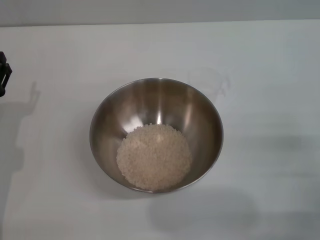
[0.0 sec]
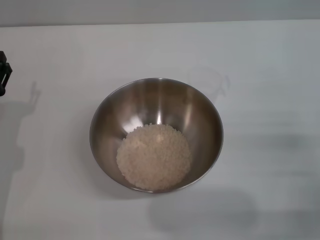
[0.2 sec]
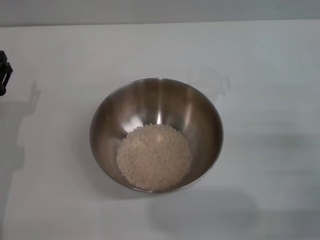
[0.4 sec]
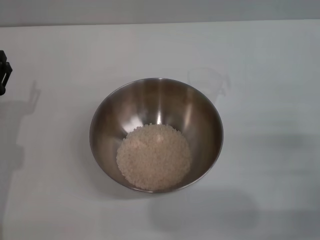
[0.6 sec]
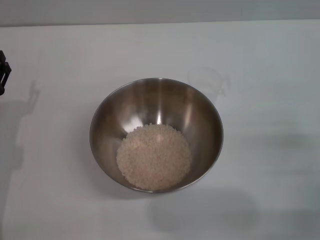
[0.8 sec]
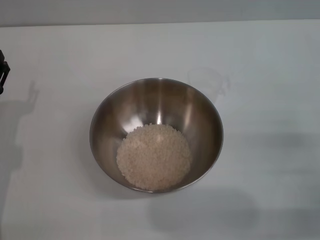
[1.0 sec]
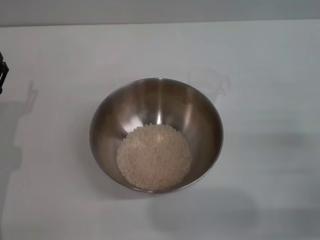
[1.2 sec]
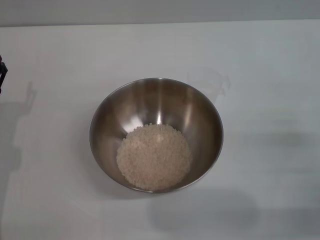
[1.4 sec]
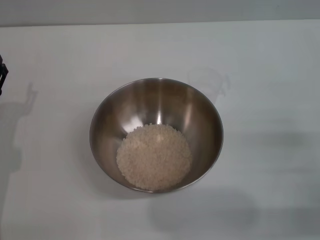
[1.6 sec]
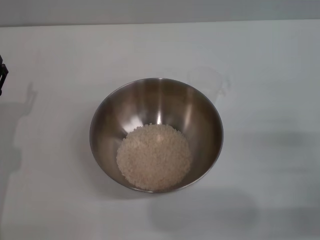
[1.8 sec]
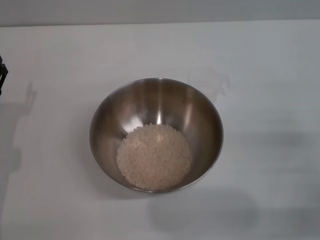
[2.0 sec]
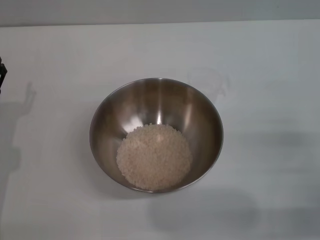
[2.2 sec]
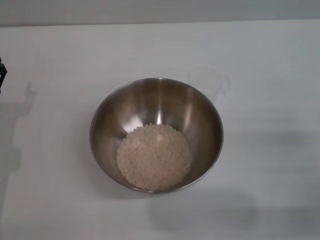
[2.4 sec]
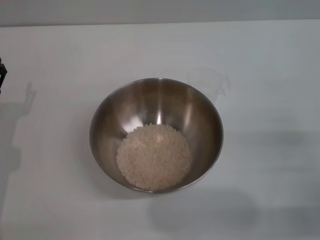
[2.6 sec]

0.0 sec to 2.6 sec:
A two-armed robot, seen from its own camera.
Task of the whole recording: Place the bowl in the middle of the table with one hand and pour the rice from the grain cup into it with the other hand.
0.0 sec to 2.6 sec: Both grippers stay about where they are.

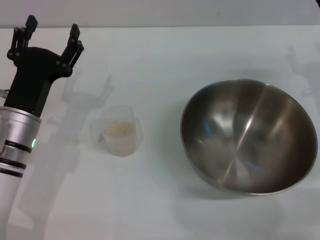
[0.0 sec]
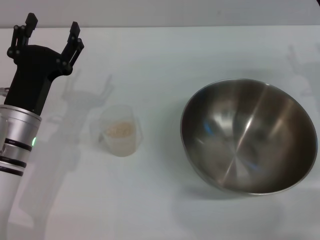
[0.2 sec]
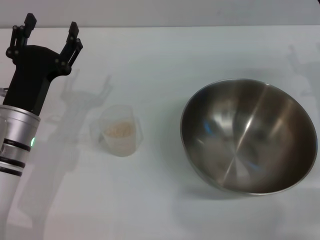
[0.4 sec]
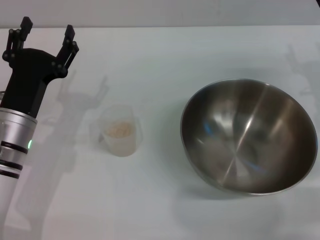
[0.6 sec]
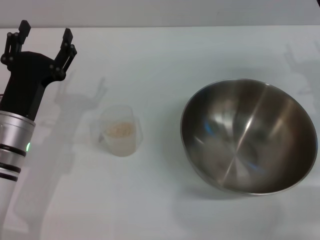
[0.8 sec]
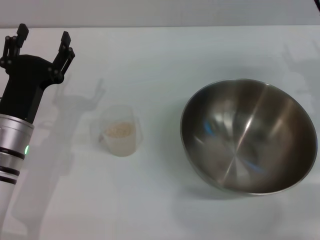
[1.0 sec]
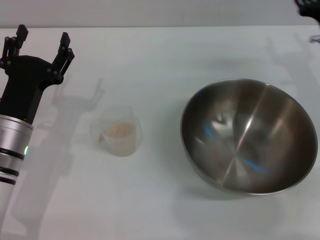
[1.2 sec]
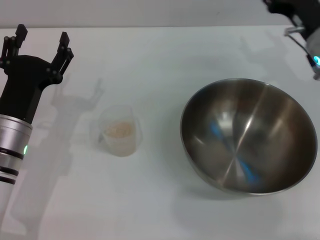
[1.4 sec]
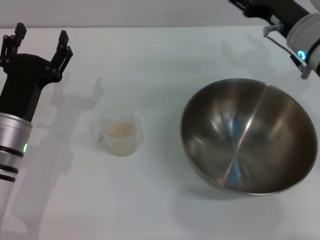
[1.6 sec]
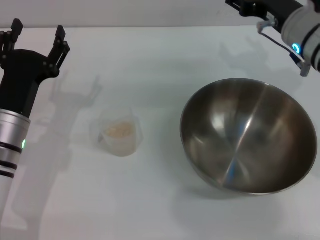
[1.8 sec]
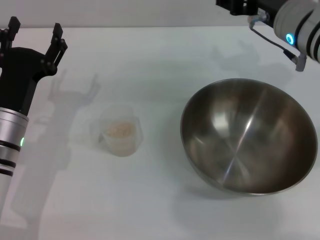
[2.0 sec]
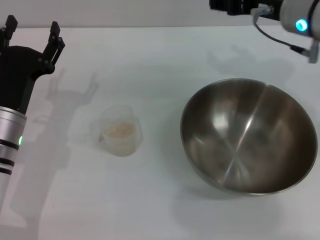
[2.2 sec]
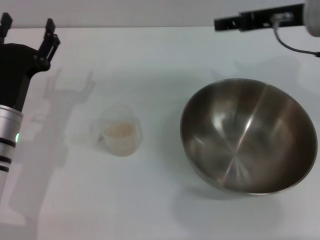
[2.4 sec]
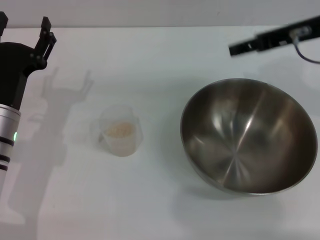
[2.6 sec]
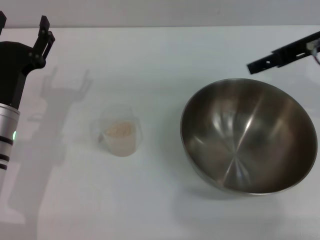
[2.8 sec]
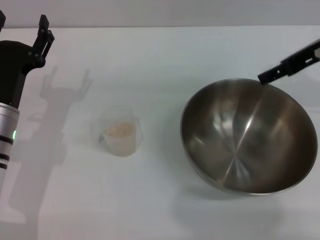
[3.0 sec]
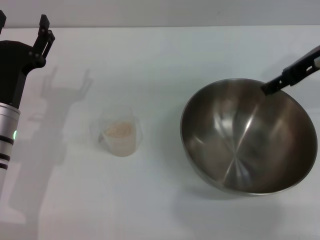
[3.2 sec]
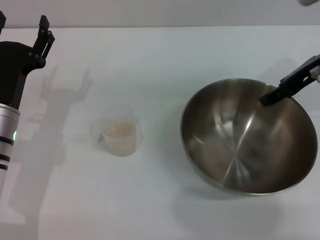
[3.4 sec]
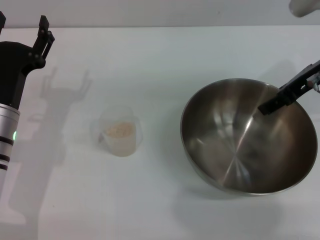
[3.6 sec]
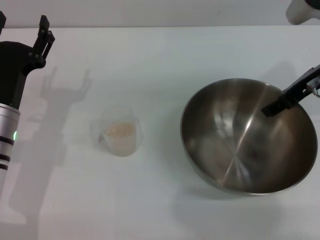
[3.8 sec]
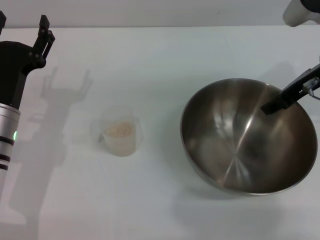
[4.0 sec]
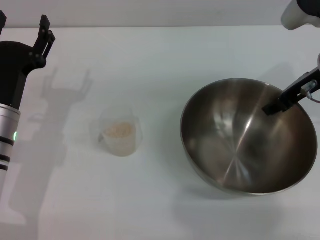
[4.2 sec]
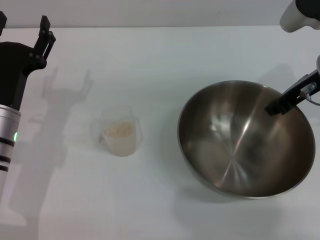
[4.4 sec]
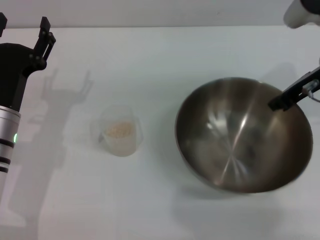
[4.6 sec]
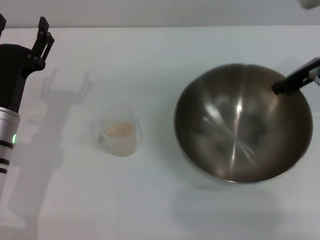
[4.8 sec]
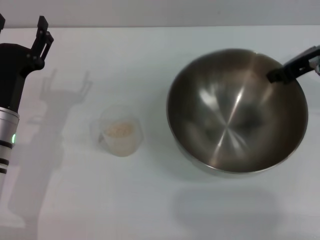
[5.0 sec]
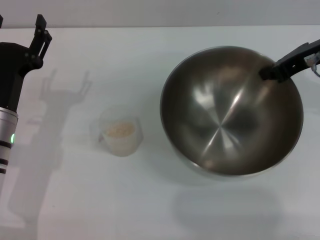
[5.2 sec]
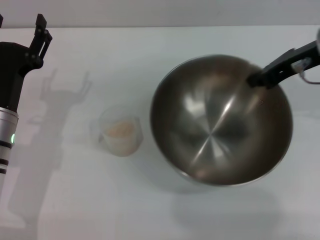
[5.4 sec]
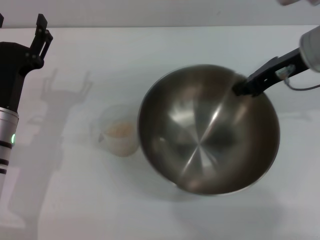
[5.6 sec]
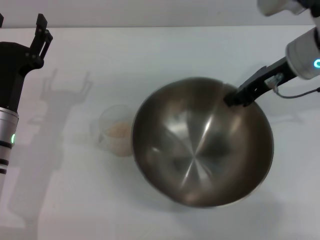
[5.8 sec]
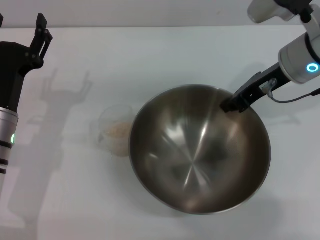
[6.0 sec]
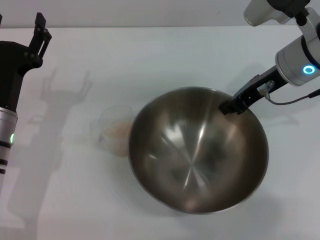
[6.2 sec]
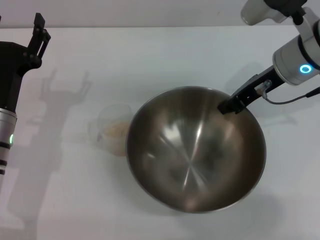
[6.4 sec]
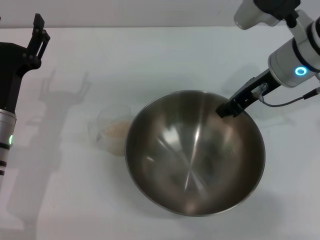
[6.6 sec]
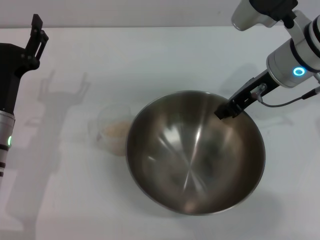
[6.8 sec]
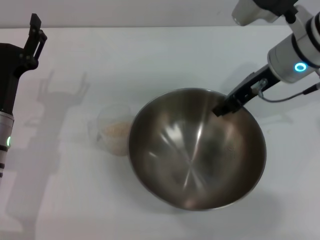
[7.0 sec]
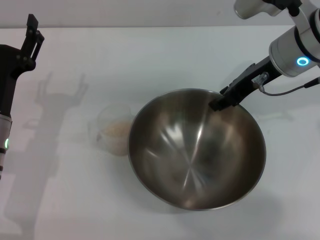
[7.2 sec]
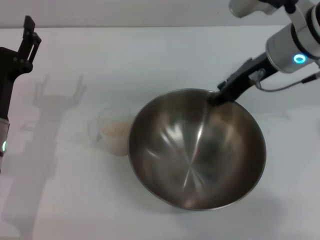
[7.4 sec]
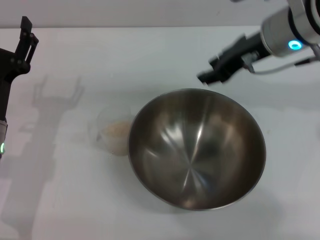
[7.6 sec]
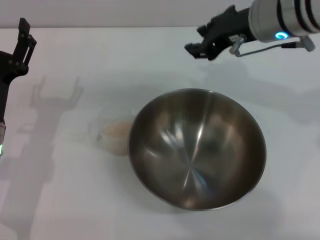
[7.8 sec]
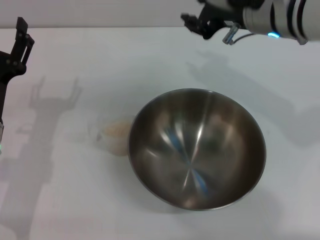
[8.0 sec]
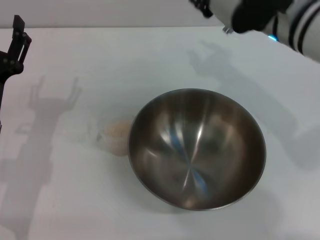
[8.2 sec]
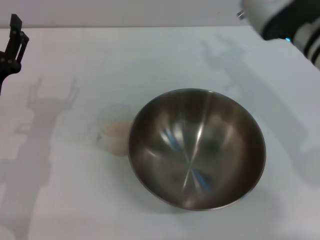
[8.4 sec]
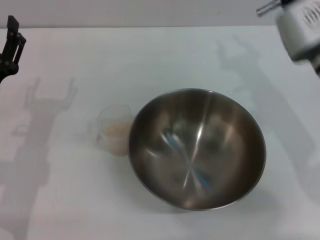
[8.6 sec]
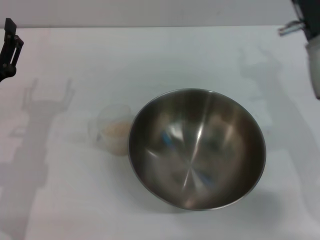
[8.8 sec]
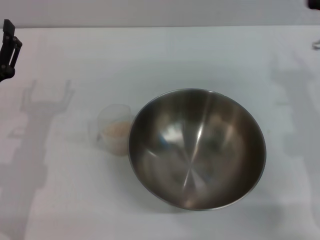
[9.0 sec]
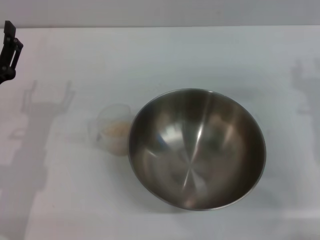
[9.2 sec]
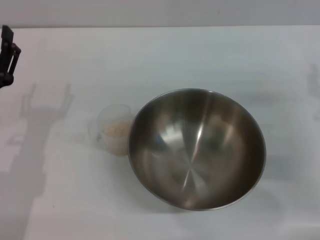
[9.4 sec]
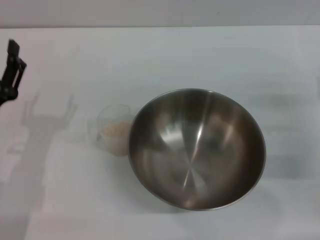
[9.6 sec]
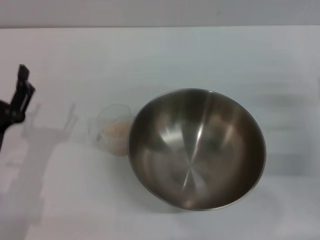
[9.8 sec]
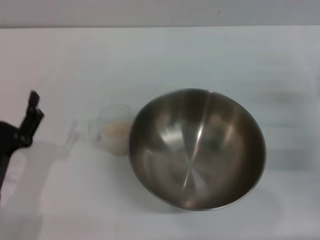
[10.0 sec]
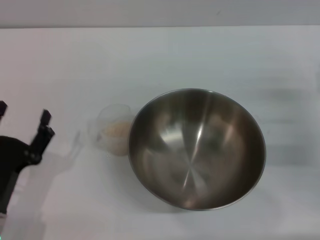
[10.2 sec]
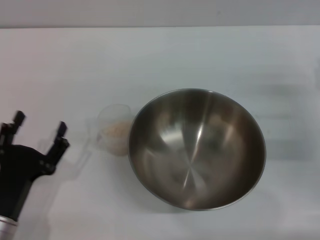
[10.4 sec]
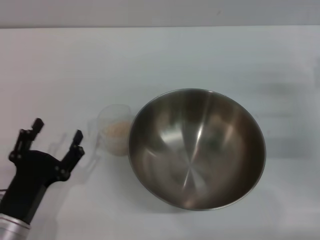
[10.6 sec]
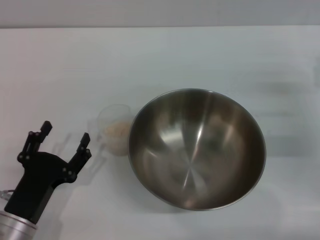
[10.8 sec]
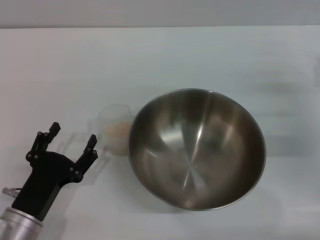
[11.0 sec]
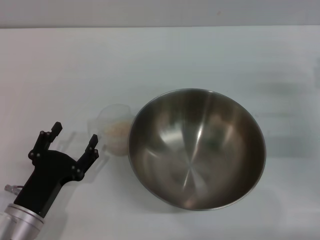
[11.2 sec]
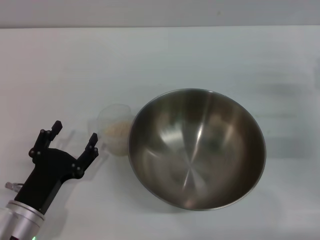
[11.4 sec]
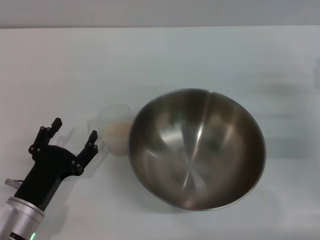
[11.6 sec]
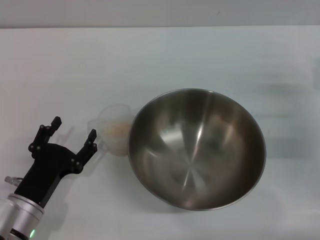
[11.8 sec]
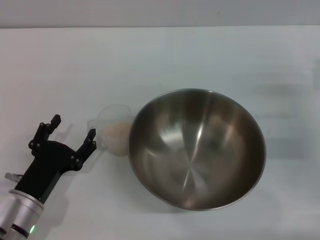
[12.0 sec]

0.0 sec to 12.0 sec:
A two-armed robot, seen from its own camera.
Task of the whole recording: Place the bowl in the middle of the table with one hand and pour the rice from the grain cup into it with the other hand.
Step, 0.0 sec to 5.2 sec: Pick up the bowl with the right gripper.
Step, 5.4 sec to 8.2 sec: Place the bowl in the center of view with the right gripper.
0.0 sec to 1.6 sec: The right gripper is displaced to the left and upward by roughly 10 cm.
1.6 sec to 3.0 sec: The right gripper moves upward, roughly 10 cm.
3.0 sec to 4.4 sec: The right gripper travels downward by approximately 5 cm, and closes its fingers.
4.4 sec to 6.0 sec: The right gripper closes.
6.0 sec to 7.6 sec: The right gripper opens its fingers.
7.6 sec to 9.0 sec: The right gripper heads downward, backward and to the right, covering about 15 cm.
9.0 sec to 10.4 sec: The left gripper travels backward and downward by some 10 cm. Meanwhile the right gripper shifts approximately 10 cm to the right and downward.
10.4 sec to 12.0 sec: The grippers move only a little.

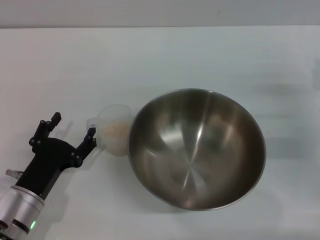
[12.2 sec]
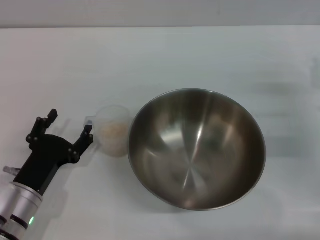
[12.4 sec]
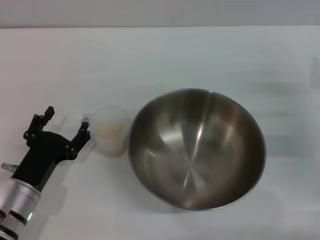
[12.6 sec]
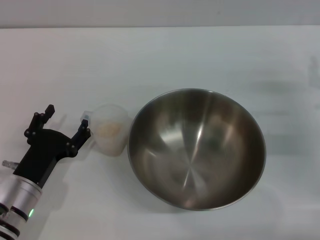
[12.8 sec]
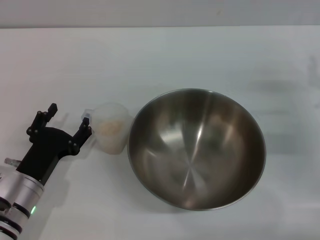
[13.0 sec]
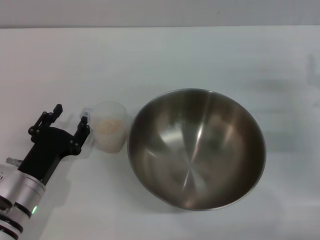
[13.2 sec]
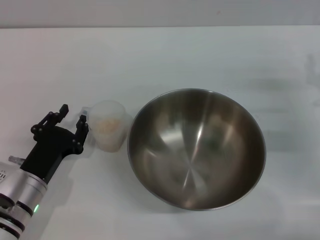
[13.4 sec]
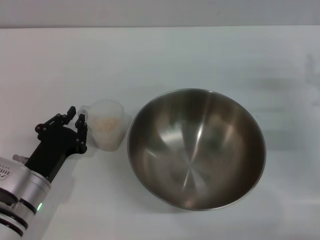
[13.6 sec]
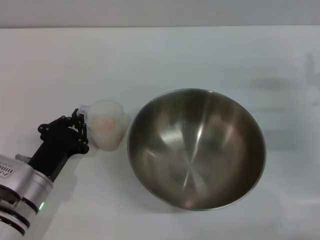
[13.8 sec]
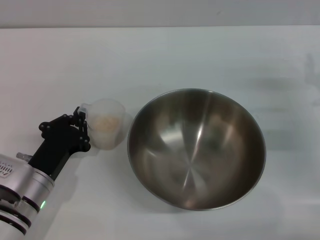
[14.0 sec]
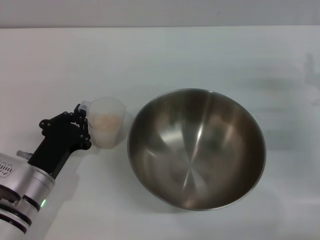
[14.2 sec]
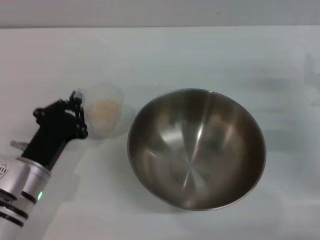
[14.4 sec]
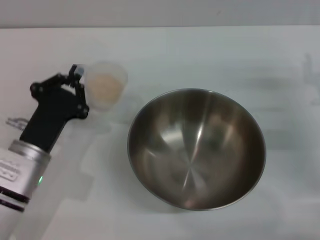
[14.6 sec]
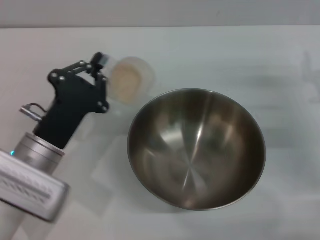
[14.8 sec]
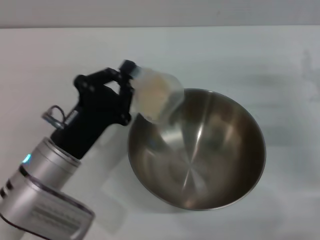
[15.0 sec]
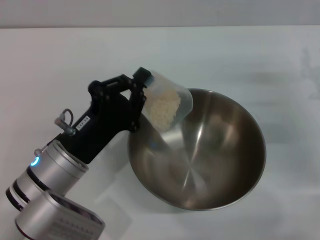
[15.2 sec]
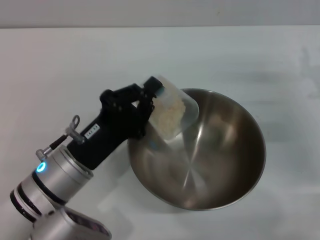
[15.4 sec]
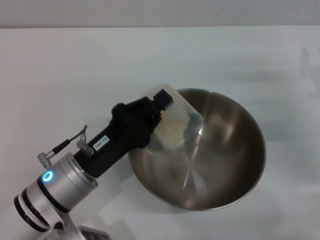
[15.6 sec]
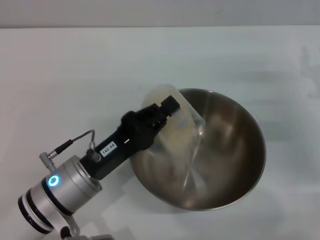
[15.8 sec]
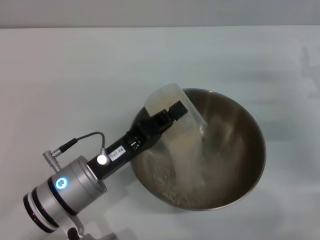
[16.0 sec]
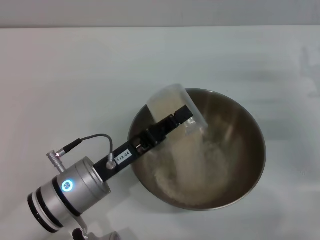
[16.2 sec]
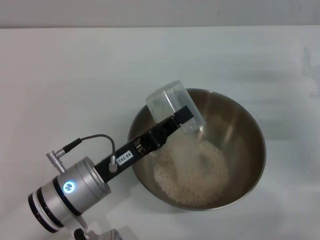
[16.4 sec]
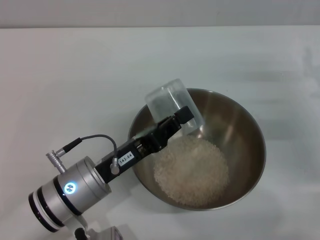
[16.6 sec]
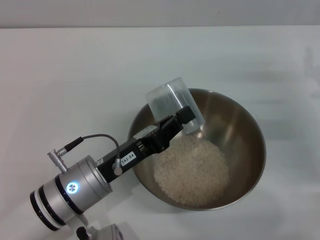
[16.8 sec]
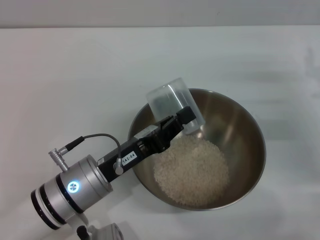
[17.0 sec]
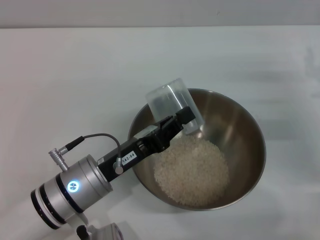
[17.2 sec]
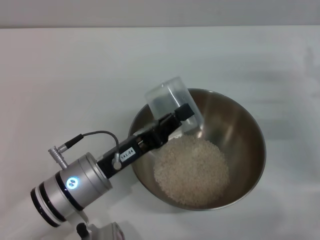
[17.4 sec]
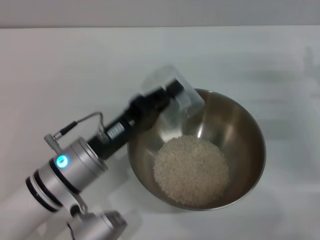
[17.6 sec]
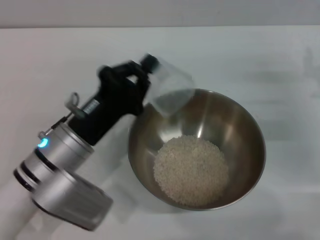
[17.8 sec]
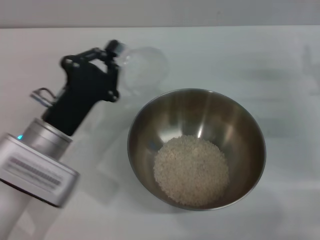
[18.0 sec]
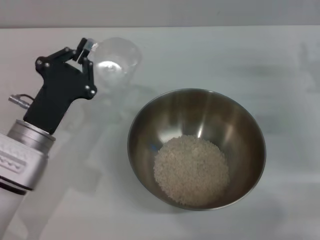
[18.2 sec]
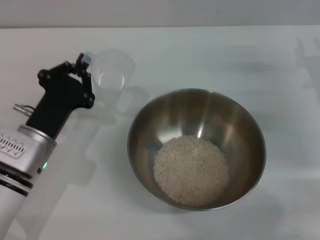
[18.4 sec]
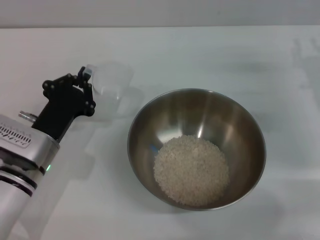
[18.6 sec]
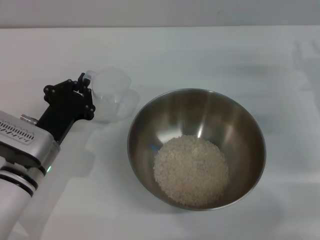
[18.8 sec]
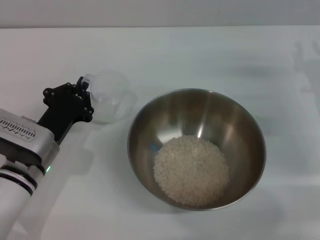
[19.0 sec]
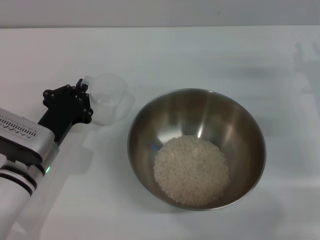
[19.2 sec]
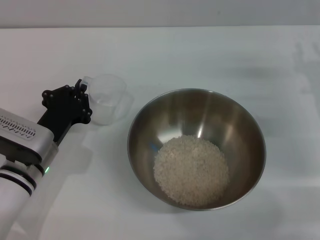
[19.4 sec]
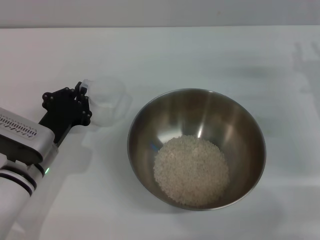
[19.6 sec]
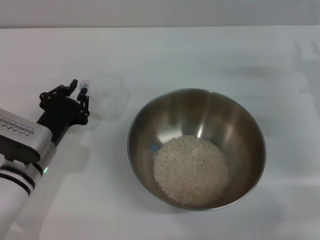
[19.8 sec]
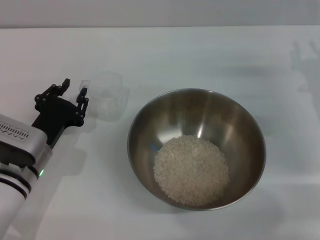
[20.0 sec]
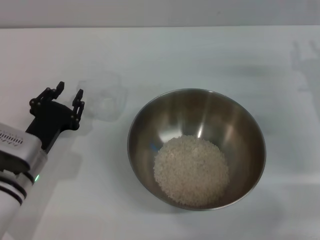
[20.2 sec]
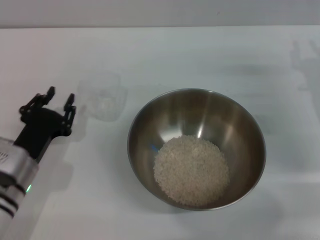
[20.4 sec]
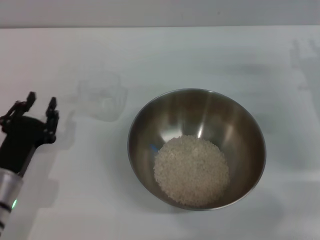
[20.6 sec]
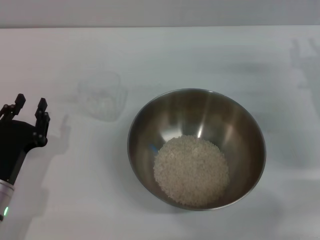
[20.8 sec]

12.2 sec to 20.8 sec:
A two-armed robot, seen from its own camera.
Task of the whole recording: Place the bowl in the middle of the table with one hand and pour the rice from the grain cup into it with the other hand.
Step, 12.2 sec to 14.8 sec: Pick up the cup with rice in it with the left gripper.
Step, 15.0 sec to 16.6 sec: Pour the rice from the cup into the bowl with the left gripper.
Step, 16.8 sec to 20.2 sec: Place the cup on the table with the left gripper.
12.2 sec to 13.6 sec: The left gripper closes up.
13.6 sec to 15.0 sec: The left gripper travels upward by about 5 cm, and closes up.
16.6 sec to 18.0 sec: The left gripper changes place by about 5 cm.
18.0 sec to 19.4 sec: The left gripper shifts by about 5 cm.
19.4 sec to 20.8 sec: The left gripper is displaced backward by approximately 5 cm, and opens.
